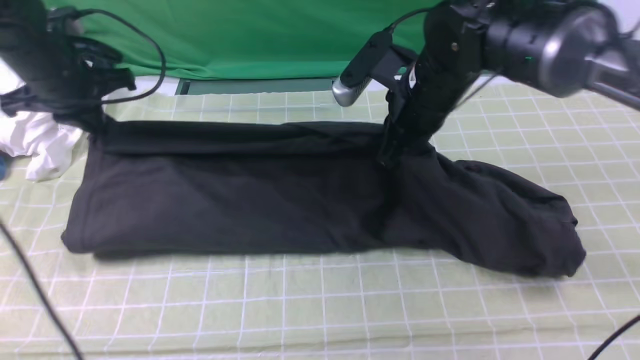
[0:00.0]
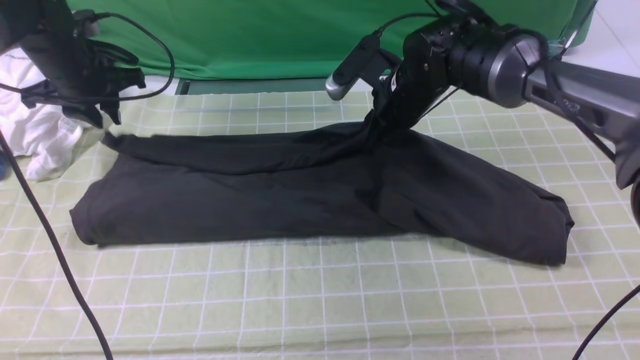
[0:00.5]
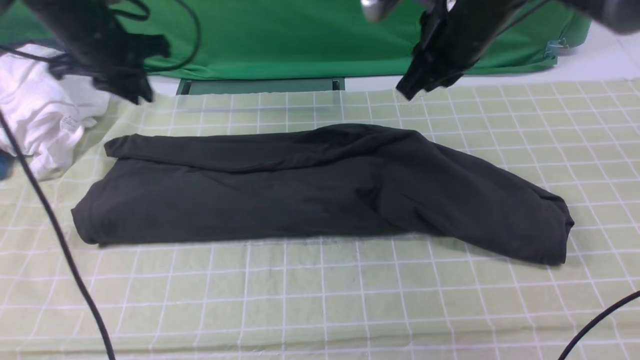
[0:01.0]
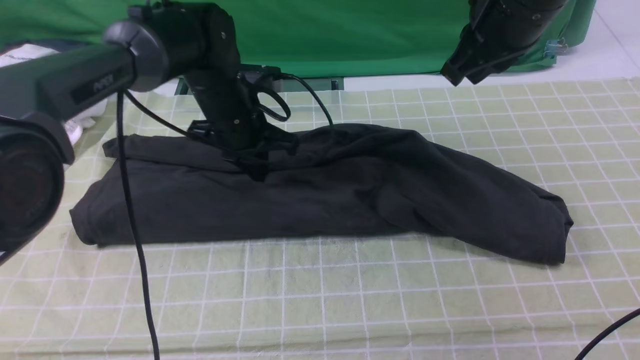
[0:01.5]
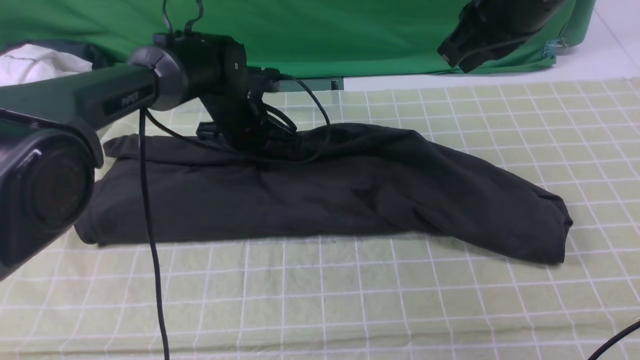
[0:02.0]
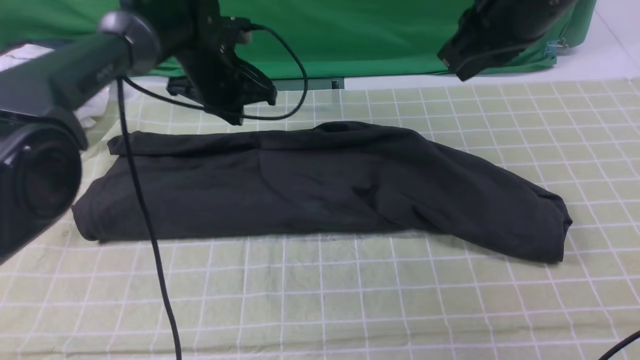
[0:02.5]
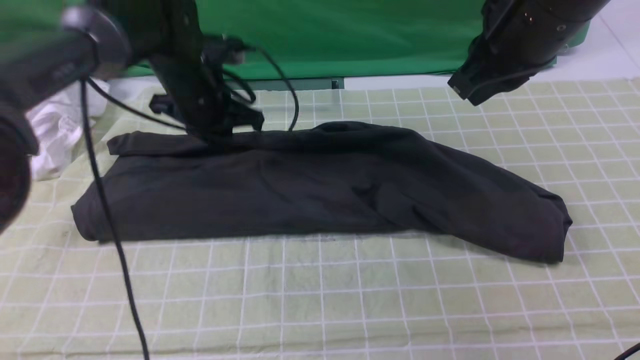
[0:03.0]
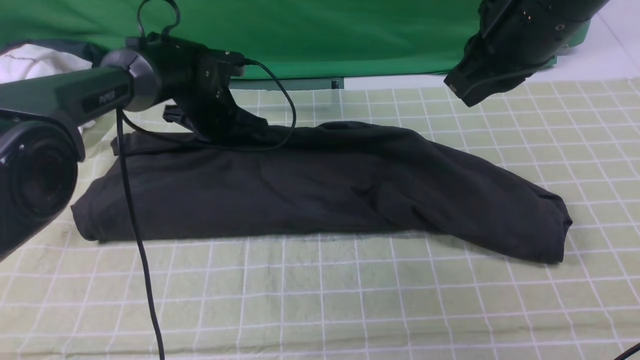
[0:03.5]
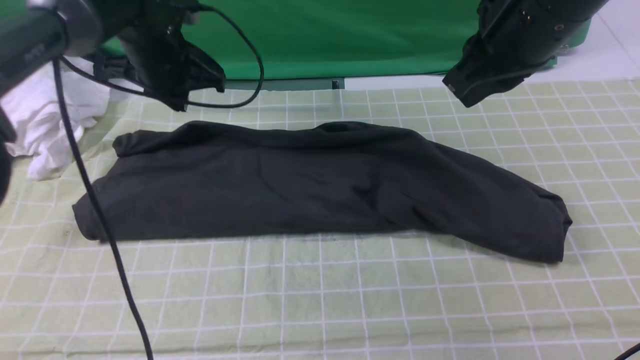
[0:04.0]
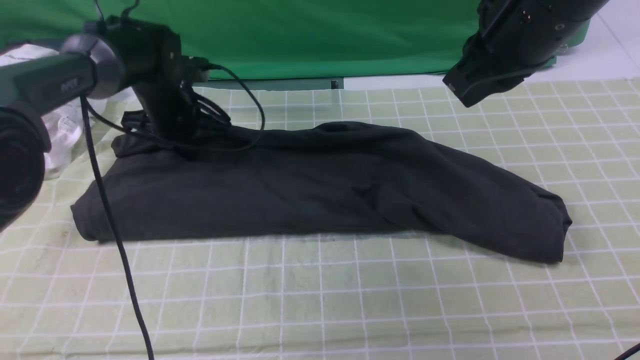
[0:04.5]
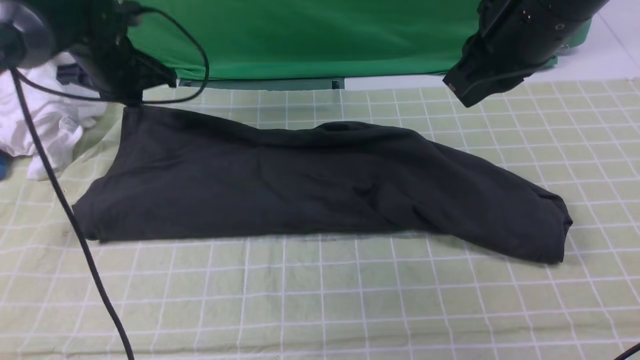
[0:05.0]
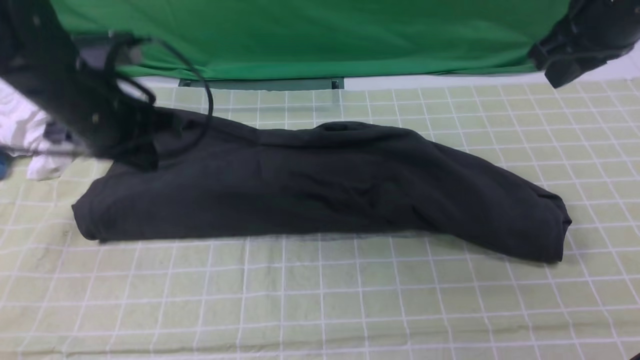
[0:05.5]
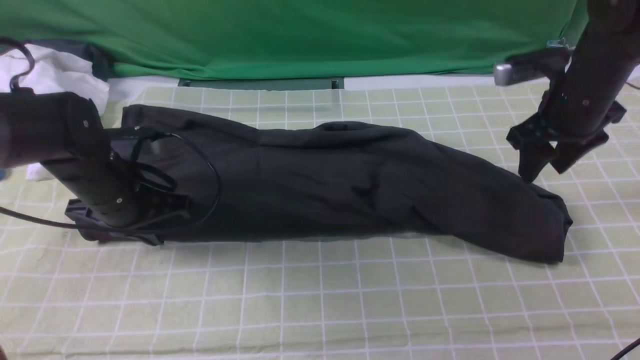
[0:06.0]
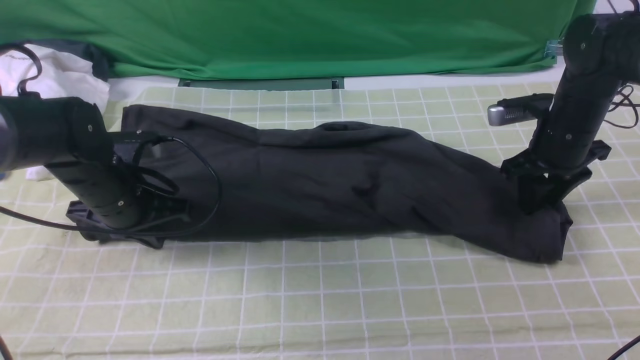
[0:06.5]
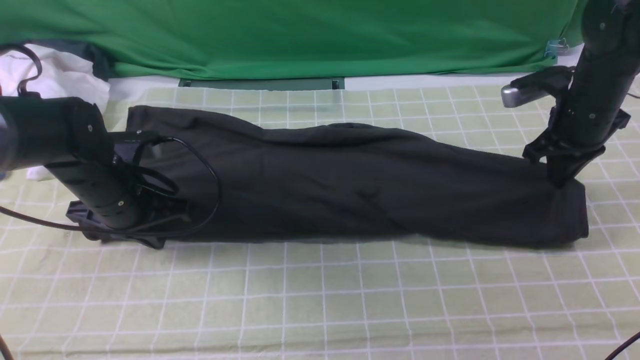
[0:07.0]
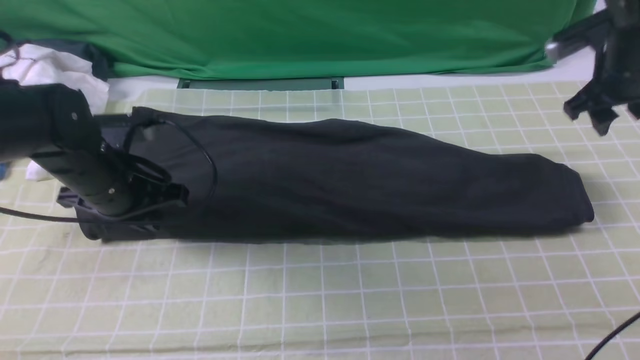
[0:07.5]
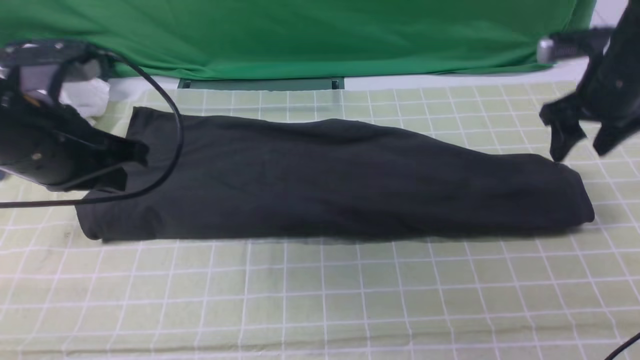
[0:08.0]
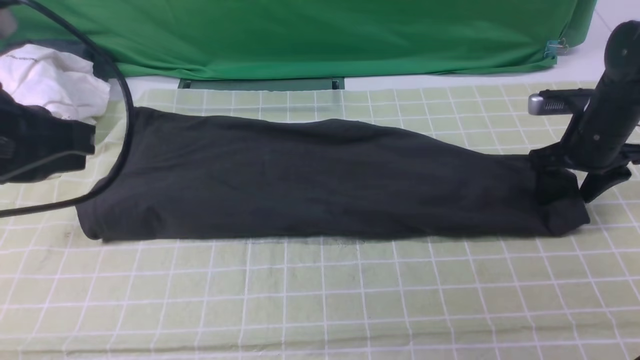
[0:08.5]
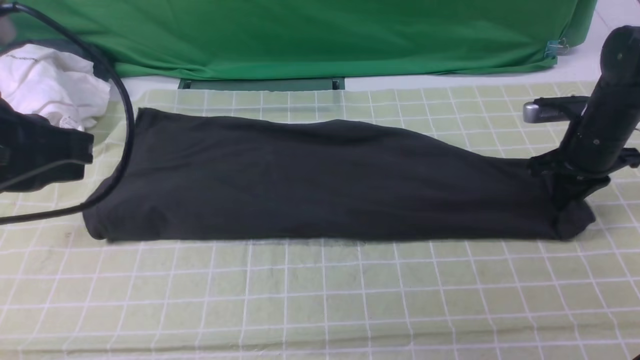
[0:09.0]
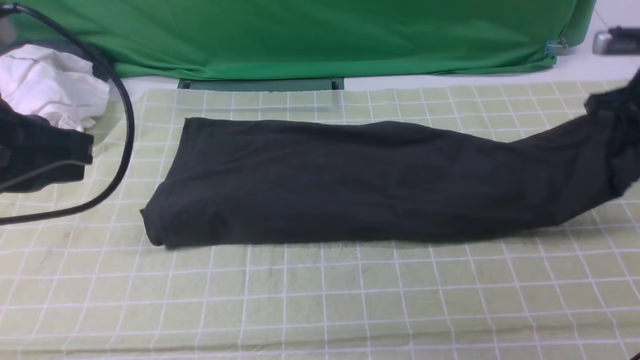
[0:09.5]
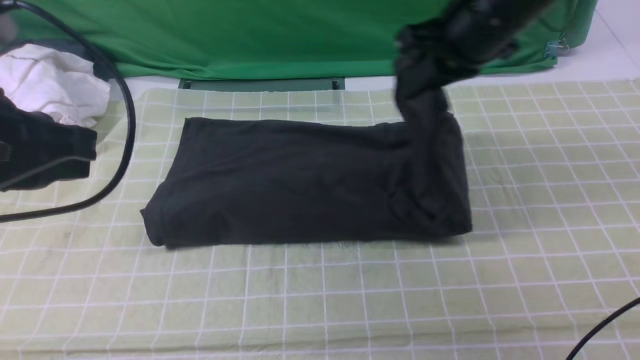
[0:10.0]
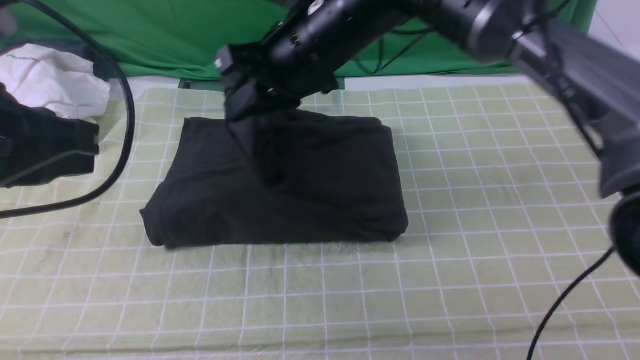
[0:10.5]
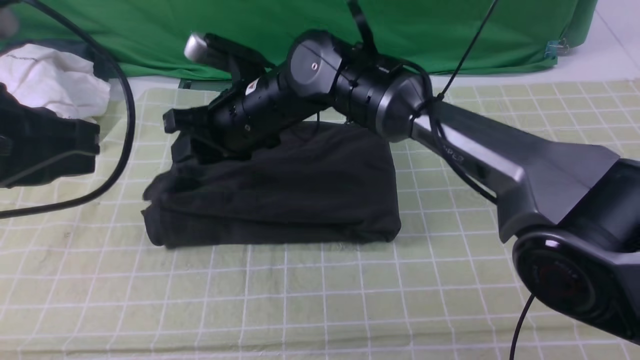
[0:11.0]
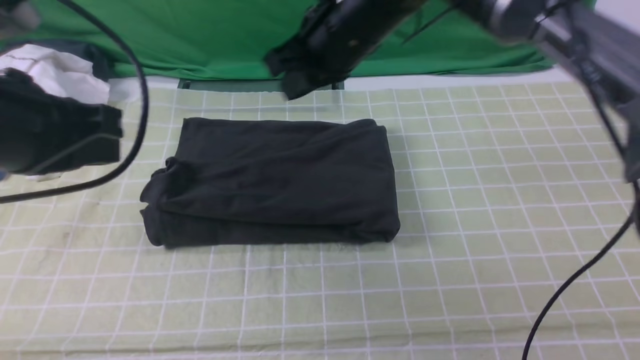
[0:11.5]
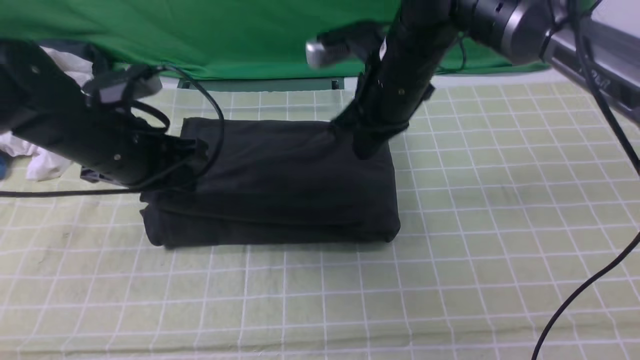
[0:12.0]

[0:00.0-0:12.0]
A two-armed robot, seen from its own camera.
Step, 0:01.0 to 0:08.5: use the right arm to clamp the right edge of the fabric.
Step, 0:09.0 to 0:11.0: use the right arm to drag the right edge of the fabric to the left and folds it over the left edge.
0:00.0 to 0:02.0: The right gripper travels upward by approximately 15 cm, and opens, then closes again. The left gripper heads to the right and downward, covering roughly 20 cm, and opens, then closes once more.
0:02.0 to 0:04.0: The left gripper moves to the left and upward, roughly 10 cm.
0:04.0 to 0:06.0: The left gripper heads backward and downward, covering some 15 cm, while the right gripper shifts approximately 20 cm downward, to the right and forward, and opens.
0:06.0 to 0:08.0: The left gripper heads upward and backward, covering some 15 cm; the right gripper closes and opens again.
0:08.0 to 0:10.0: The right gripper is displaced to the left and upward by roughly 20 cm, and closes its fingers, while the left gripper goes some 10 cm backward and upward.
0:10.0 to 0:12.0: The left gripper goes some 20 cm downward and forward. Meanwhile the right gripper travels downward by about 5 cm, goes to the left and returns, about 20 cm each way, and opens, then closes again.

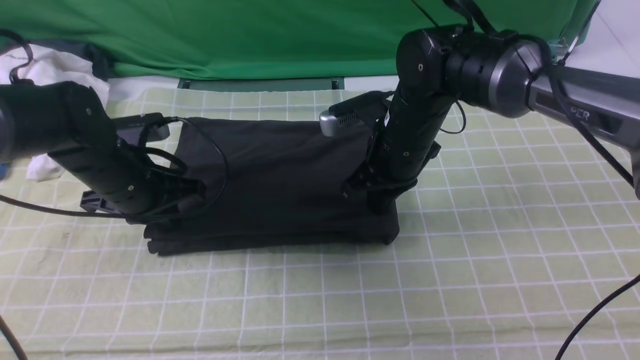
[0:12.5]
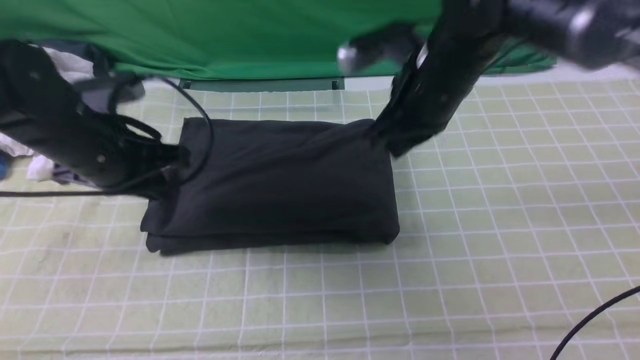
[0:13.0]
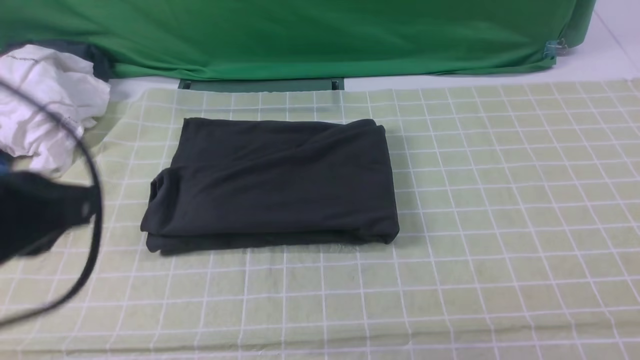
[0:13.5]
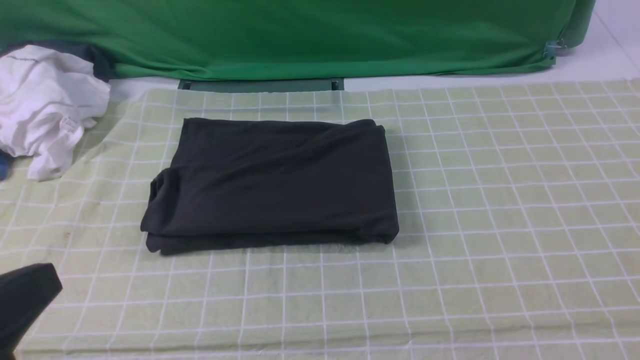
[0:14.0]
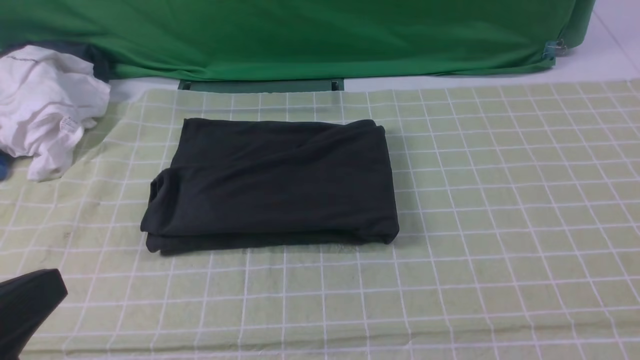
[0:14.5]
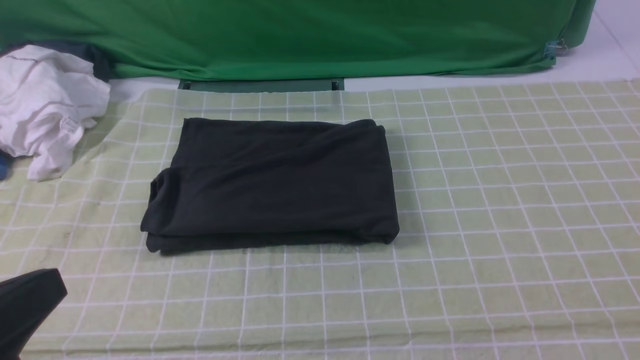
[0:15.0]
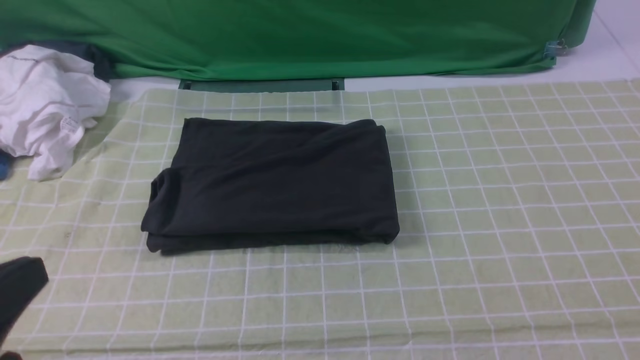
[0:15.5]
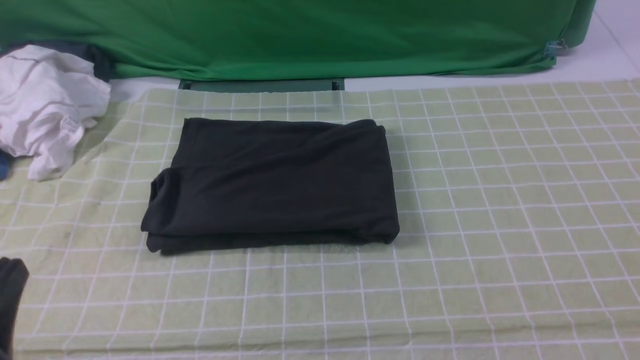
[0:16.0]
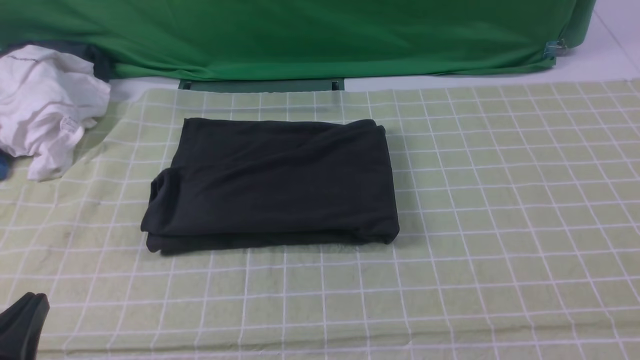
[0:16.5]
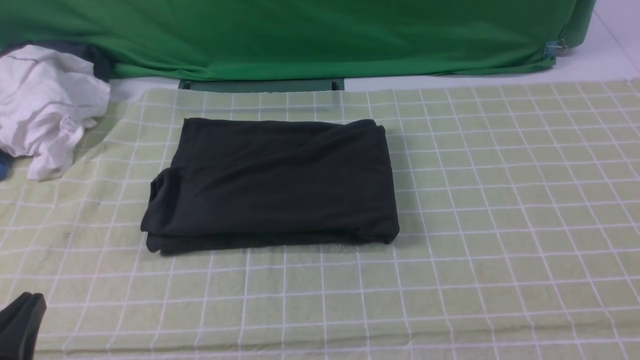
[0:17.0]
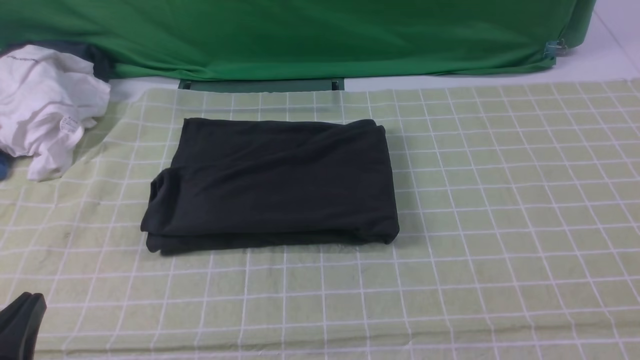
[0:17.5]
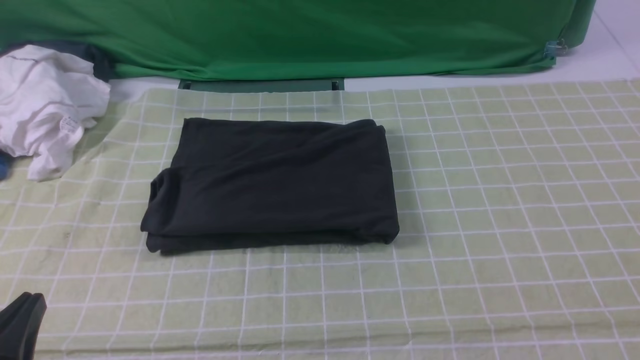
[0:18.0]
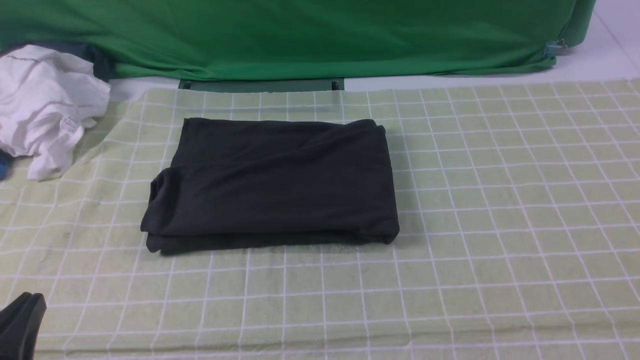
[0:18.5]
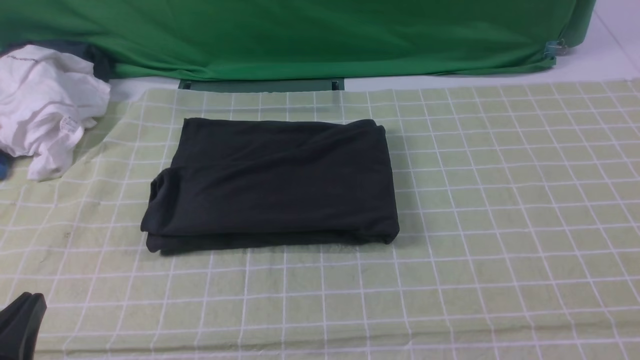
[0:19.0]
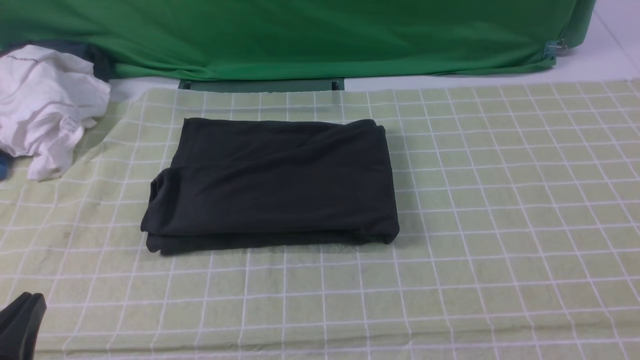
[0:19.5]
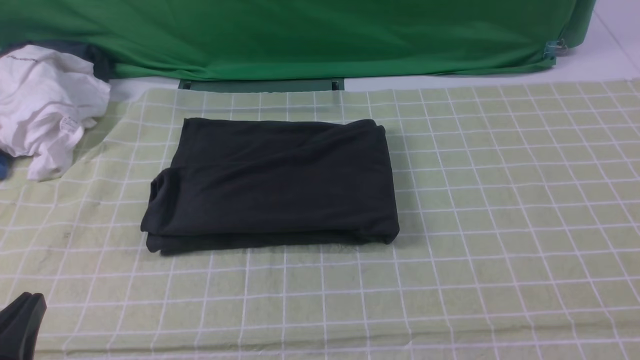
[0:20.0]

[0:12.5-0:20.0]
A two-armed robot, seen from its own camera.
0:12.5 to 0:14.5: The left gripper shifts roughly 35 cm backward and upward. The right gripper shifts roughly 50 cm backward, to the right and upward.
0:14.5 to 0:16.5: The left gripper moves downward, approximately 10 cm.
